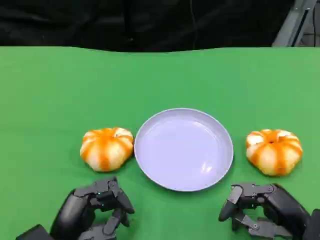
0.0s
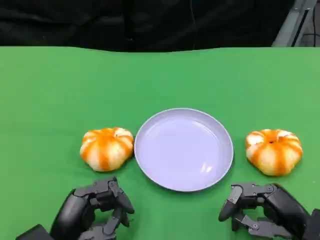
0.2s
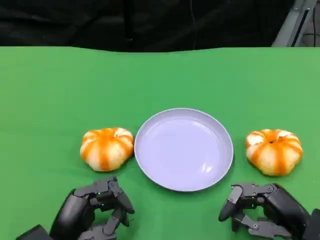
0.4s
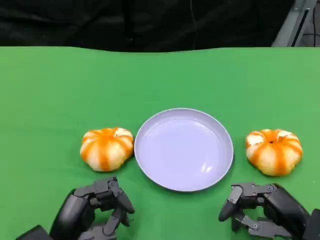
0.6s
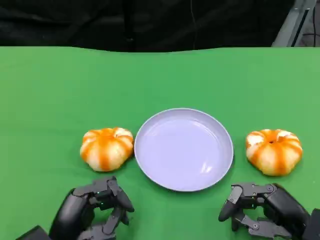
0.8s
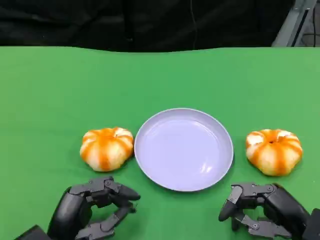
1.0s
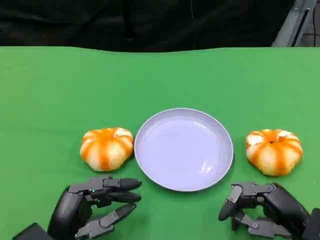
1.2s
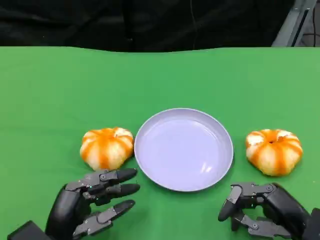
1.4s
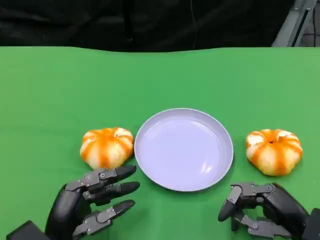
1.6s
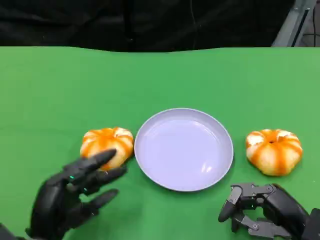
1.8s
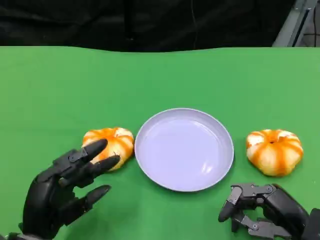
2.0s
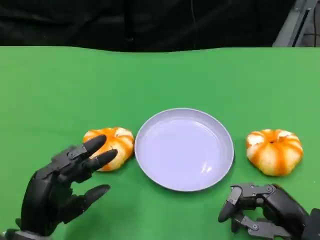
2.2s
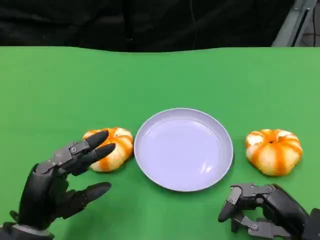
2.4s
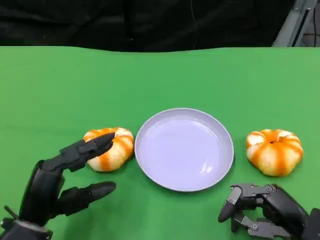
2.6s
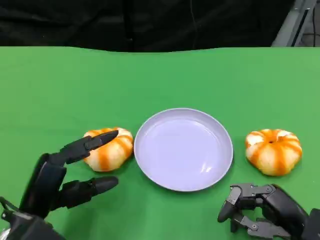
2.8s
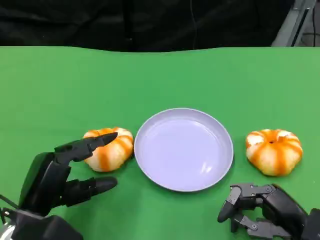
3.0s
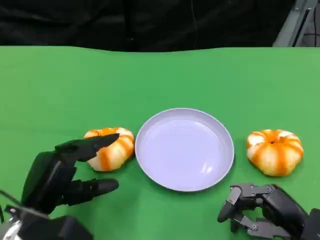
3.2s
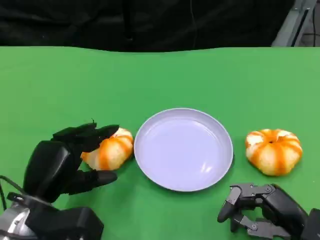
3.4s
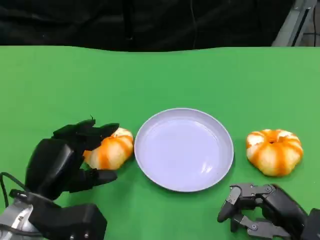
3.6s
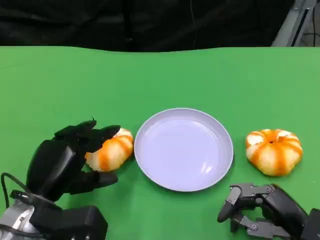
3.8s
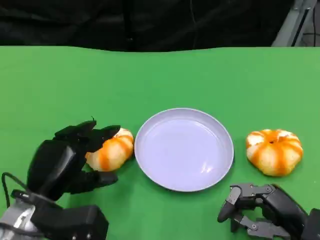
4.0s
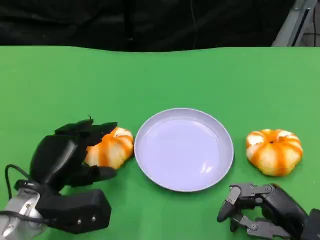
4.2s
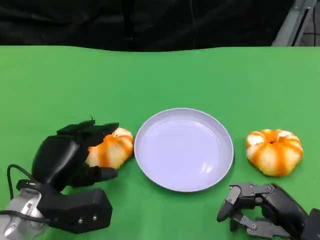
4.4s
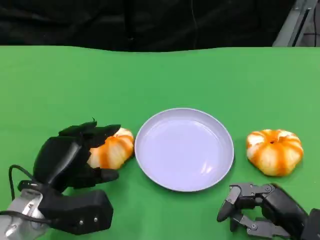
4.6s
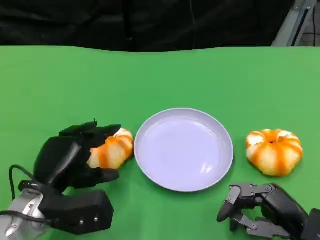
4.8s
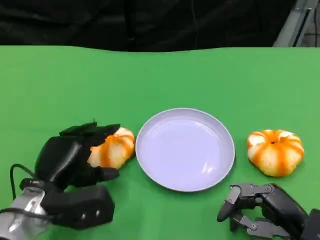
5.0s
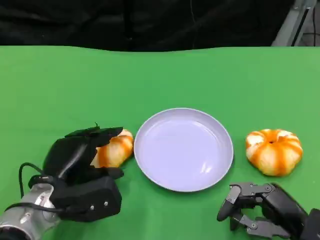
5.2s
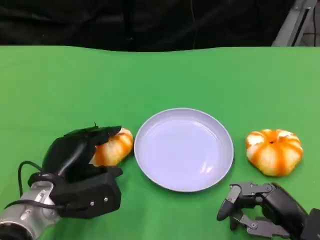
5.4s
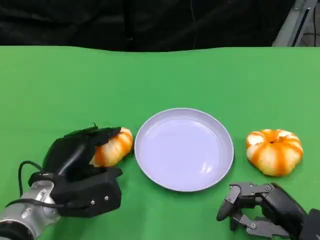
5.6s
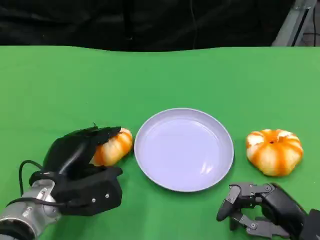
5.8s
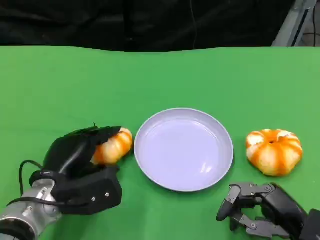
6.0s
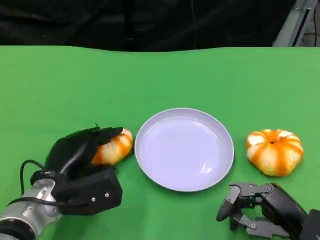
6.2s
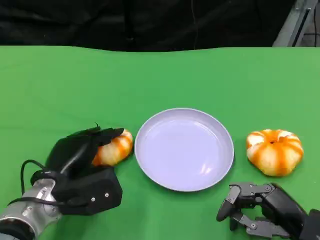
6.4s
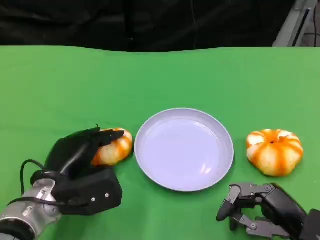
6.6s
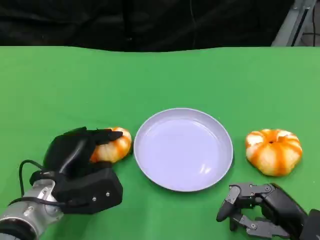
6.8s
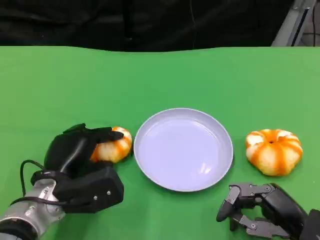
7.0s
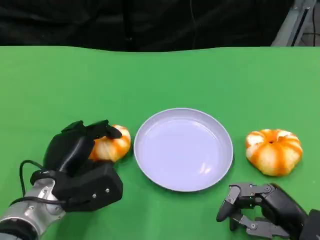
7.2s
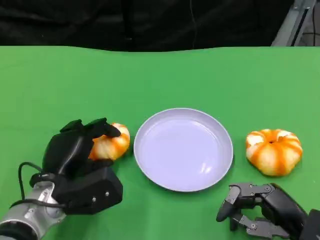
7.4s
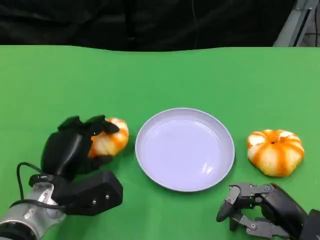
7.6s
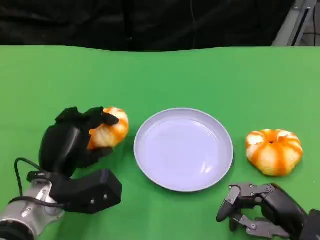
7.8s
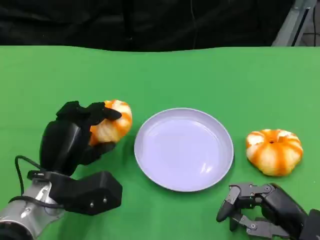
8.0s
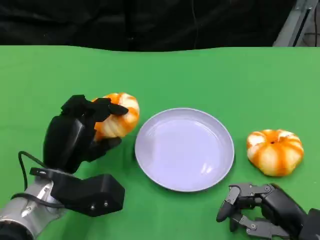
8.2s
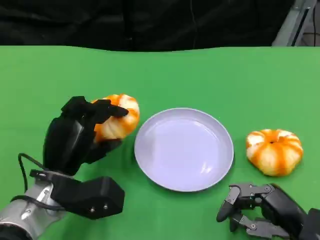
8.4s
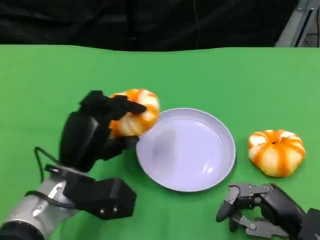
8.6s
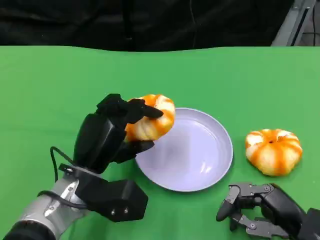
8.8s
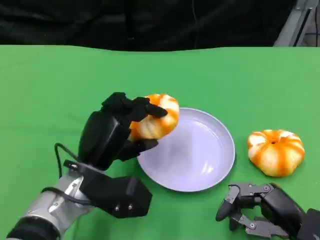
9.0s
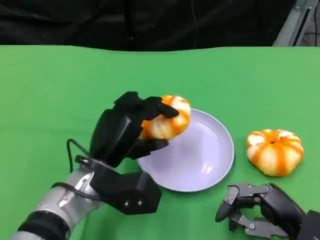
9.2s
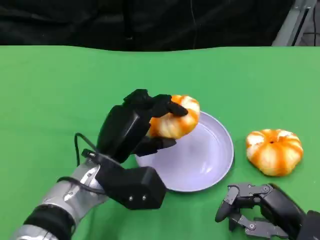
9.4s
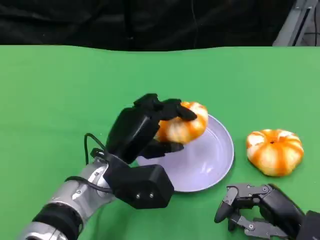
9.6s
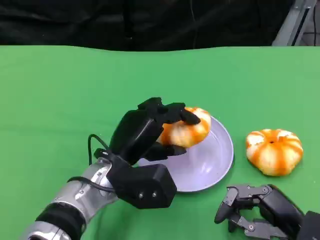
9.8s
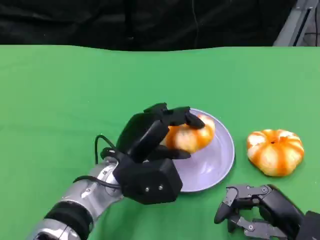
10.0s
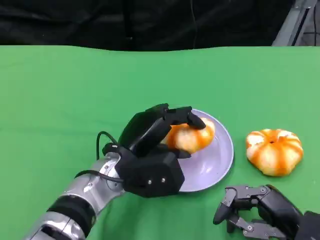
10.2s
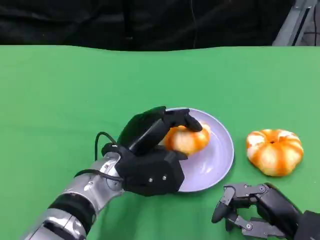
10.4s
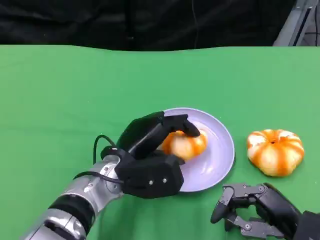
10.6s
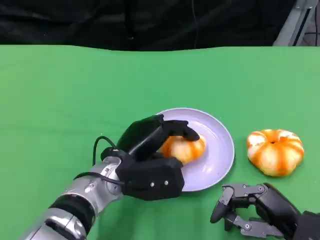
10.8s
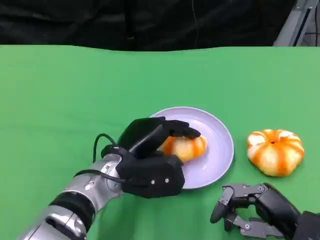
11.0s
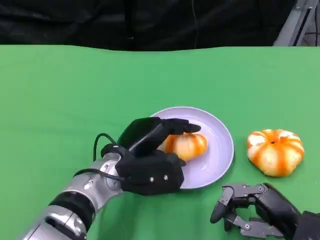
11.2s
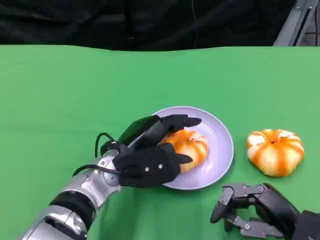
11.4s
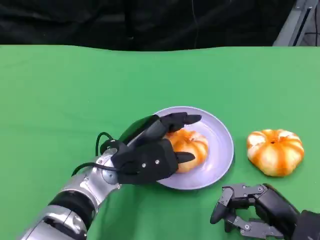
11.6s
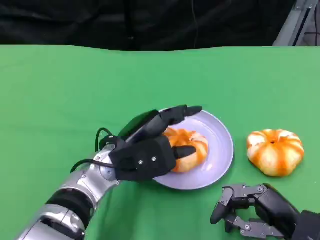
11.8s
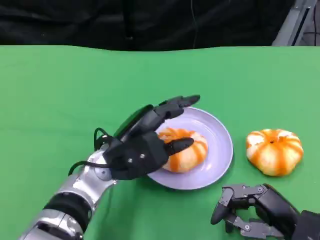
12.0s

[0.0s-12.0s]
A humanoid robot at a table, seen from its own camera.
Task of the whole recording: Grasp the bread from the table and place it into the plate.
0.0s to 1.6s: The hands move only a little.
1.6s to 3.0s: The left hand shifts by approximately 5 cm.
4.4s to 7.6s: The hands make only small movements.
7.6s to 9.0s: The left hand shifts approximately 5 cm to the right.
10.4s to 12.0s: There are only small adjustments of the hands.

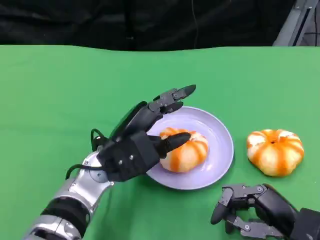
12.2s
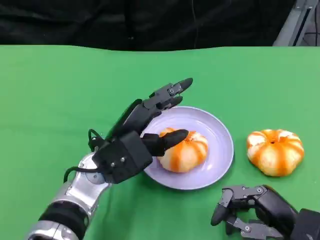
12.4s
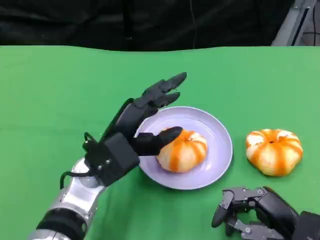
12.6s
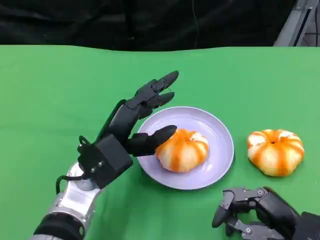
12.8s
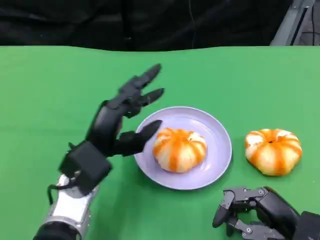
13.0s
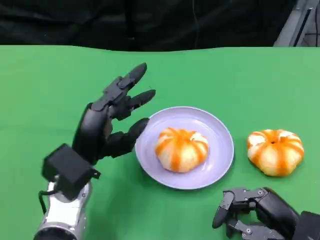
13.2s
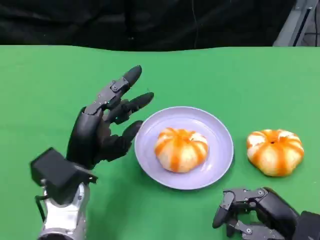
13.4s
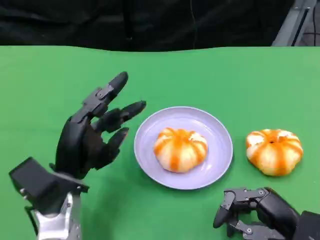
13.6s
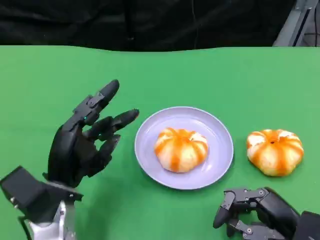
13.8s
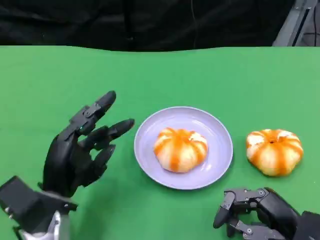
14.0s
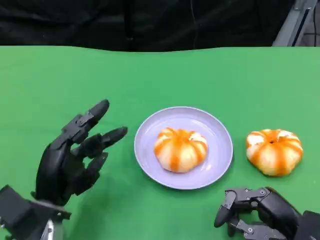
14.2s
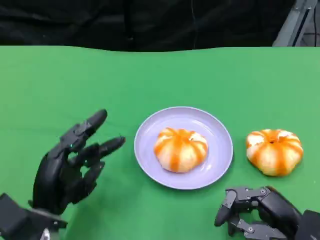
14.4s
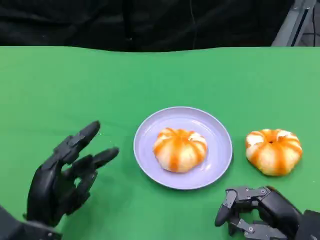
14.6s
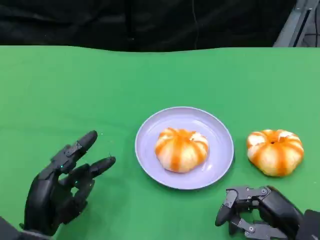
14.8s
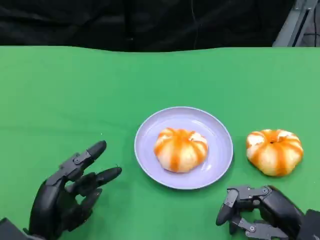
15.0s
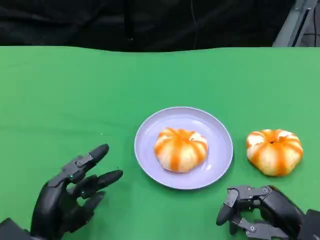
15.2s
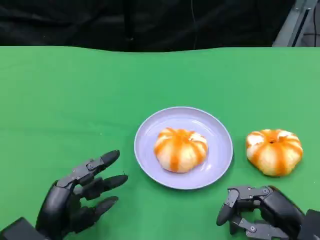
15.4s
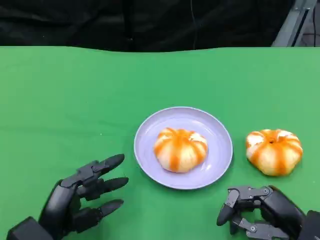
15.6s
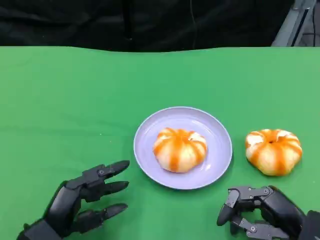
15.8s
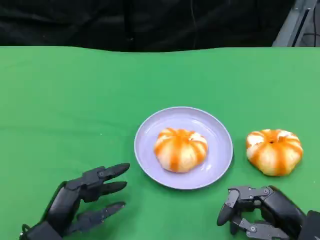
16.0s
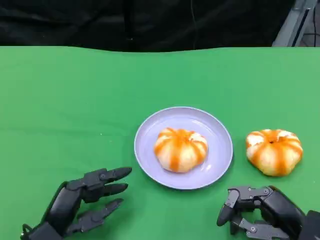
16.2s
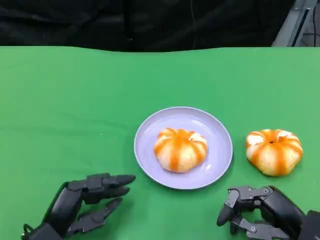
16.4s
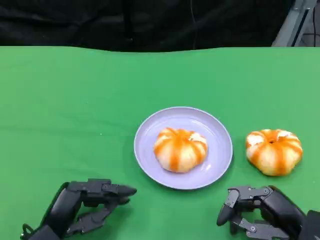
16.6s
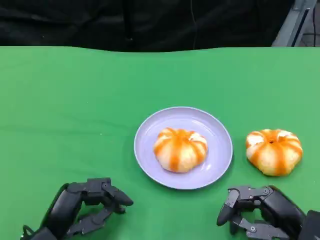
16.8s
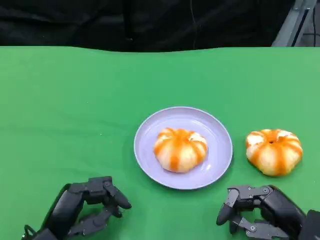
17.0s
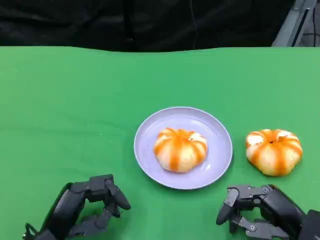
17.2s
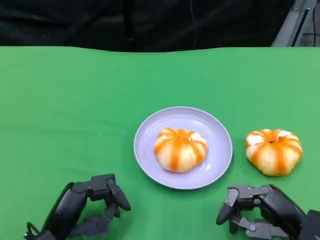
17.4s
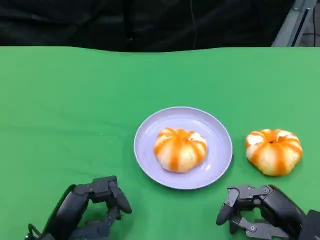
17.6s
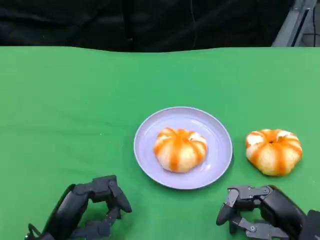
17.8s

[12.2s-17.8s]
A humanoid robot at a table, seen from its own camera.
Task of the whole recording: Grasp the bread from the table and place it into the plate.
12.2s to 13.6s: The left hand shifts some 5 cm to the left.
13.6s to 15.0s: The left hand travels backward and downward by approximately 10 cm.
16.4s to 17.8s: The hands move only a little.

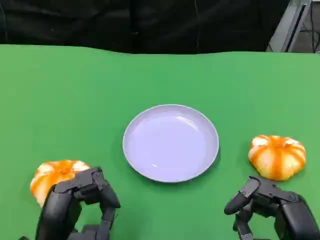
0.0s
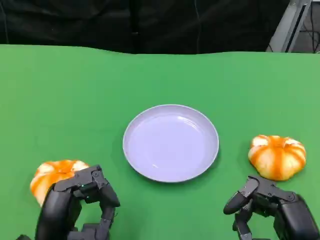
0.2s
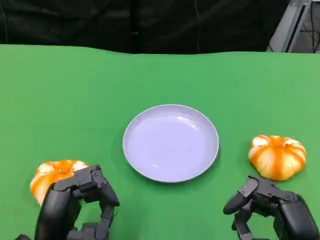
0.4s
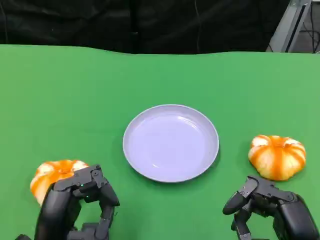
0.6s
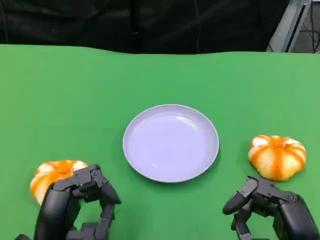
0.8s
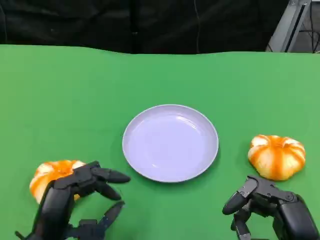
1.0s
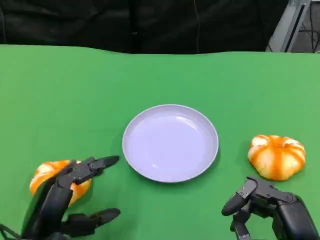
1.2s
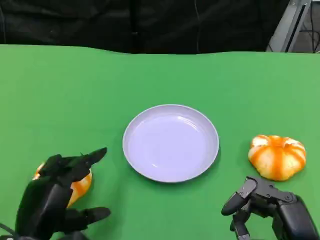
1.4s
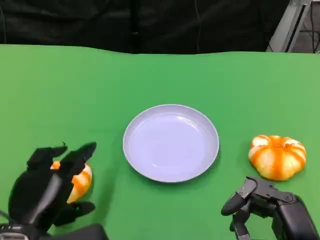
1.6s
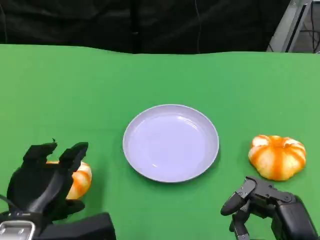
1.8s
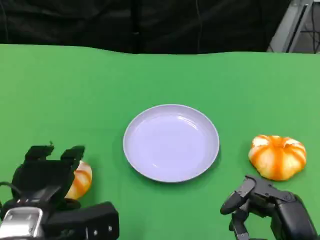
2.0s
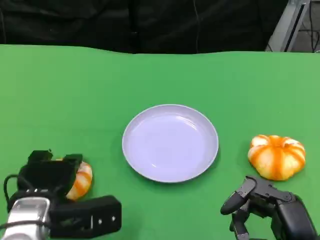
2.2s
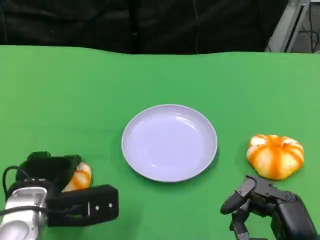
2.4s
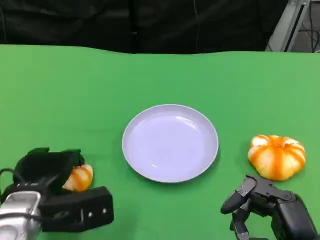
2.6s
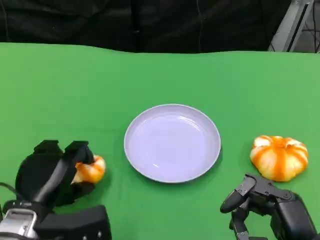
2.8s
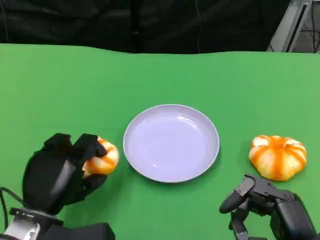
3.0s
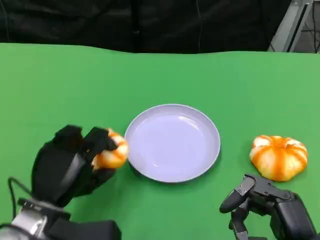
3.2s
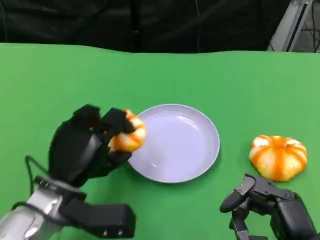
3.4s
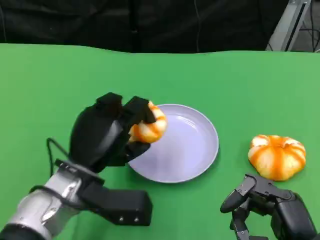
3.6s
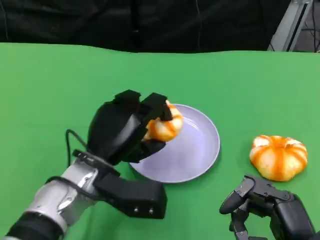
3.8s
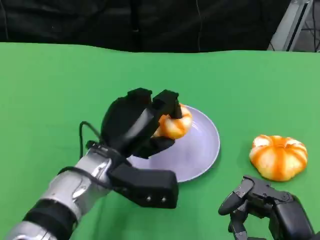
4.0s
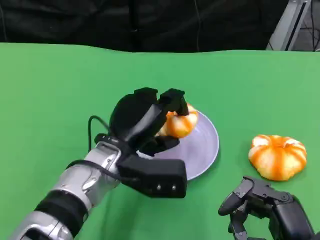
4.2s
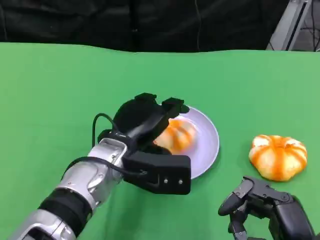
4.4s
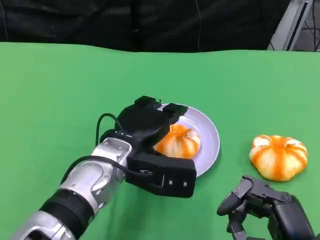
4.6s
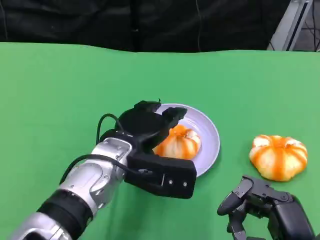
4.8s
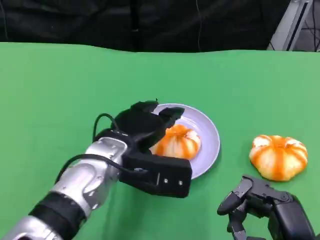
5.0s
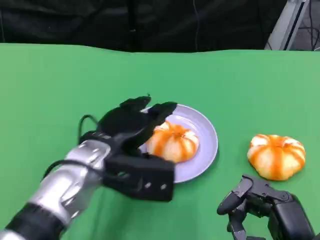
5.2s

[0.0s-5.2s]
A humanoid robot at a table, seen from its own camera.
Task of the whole recording: Grasp the bread from the table and place it into the plate.
1.8s to 3.4s: The left hand shifts roughly 5 cm forward.
